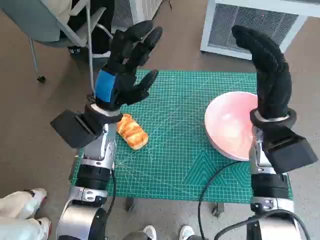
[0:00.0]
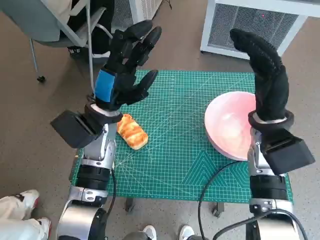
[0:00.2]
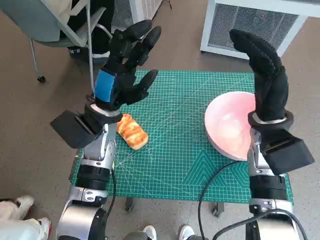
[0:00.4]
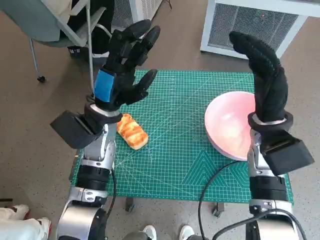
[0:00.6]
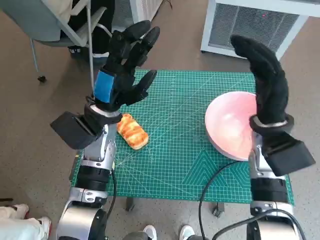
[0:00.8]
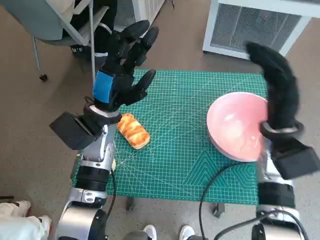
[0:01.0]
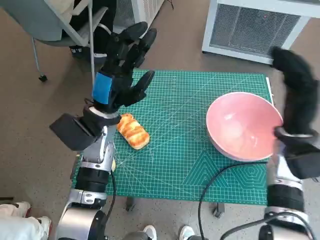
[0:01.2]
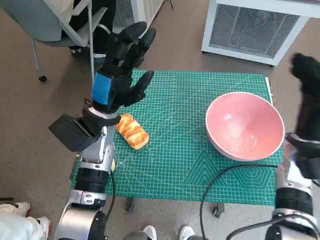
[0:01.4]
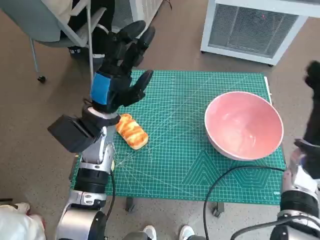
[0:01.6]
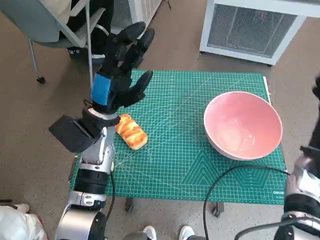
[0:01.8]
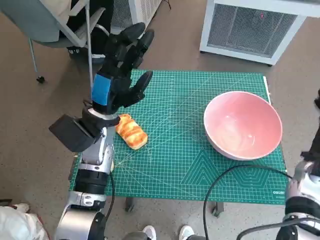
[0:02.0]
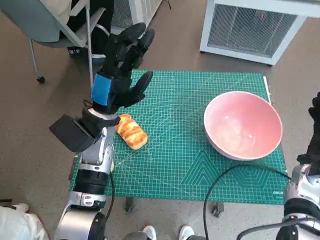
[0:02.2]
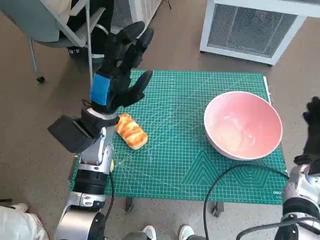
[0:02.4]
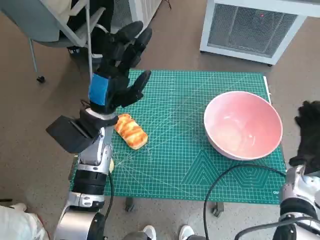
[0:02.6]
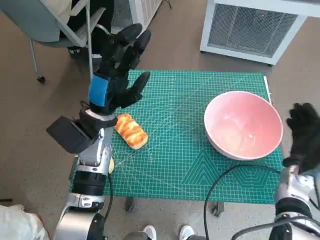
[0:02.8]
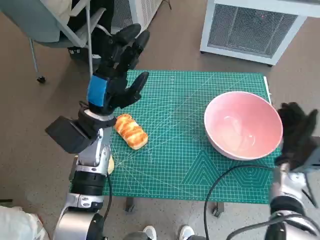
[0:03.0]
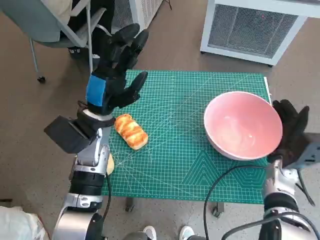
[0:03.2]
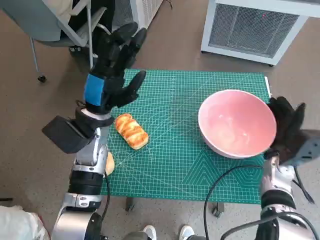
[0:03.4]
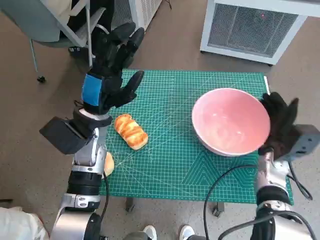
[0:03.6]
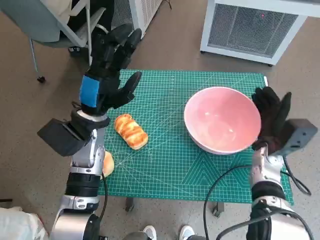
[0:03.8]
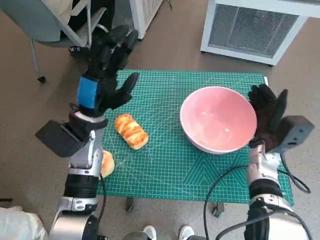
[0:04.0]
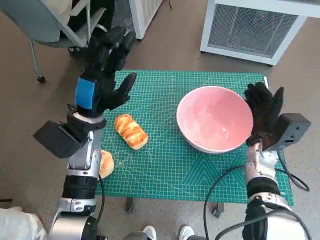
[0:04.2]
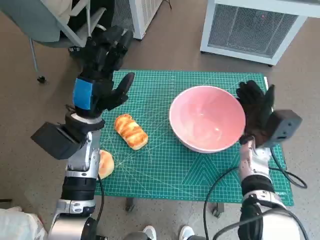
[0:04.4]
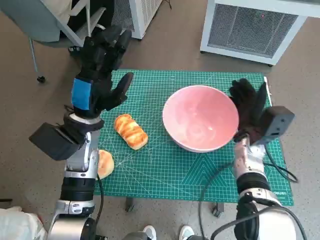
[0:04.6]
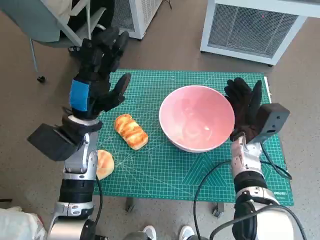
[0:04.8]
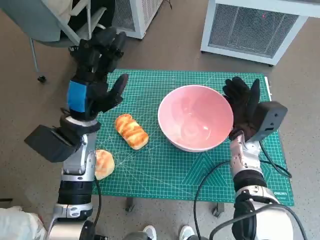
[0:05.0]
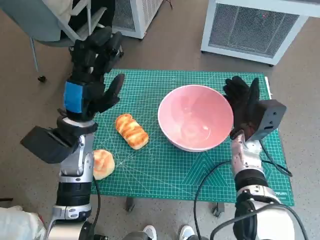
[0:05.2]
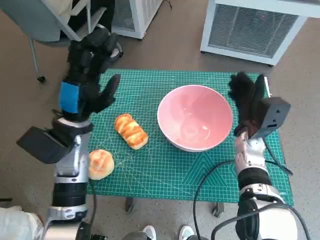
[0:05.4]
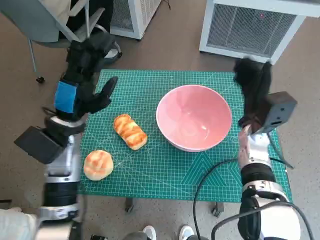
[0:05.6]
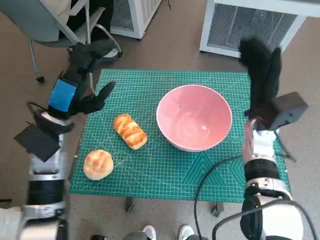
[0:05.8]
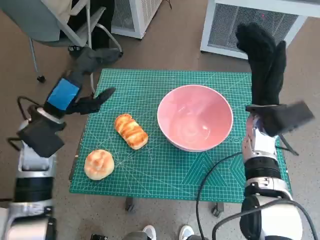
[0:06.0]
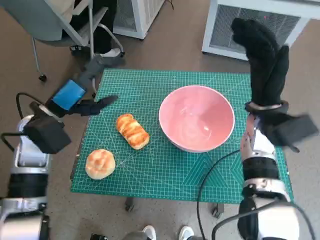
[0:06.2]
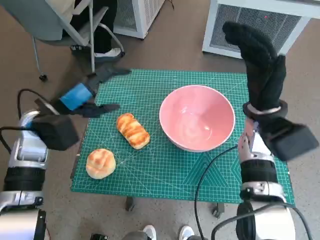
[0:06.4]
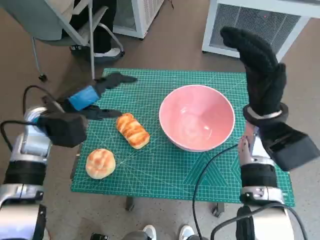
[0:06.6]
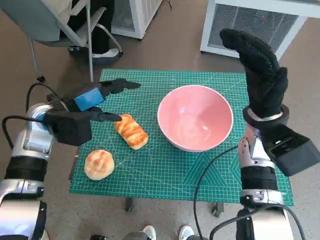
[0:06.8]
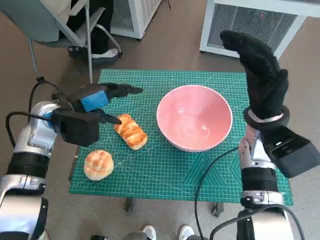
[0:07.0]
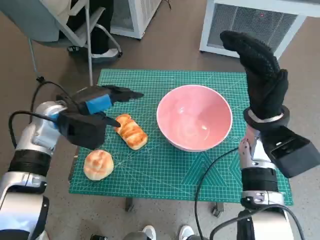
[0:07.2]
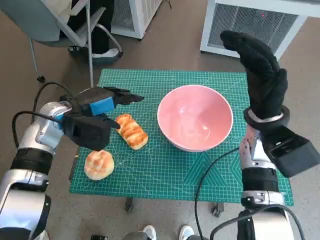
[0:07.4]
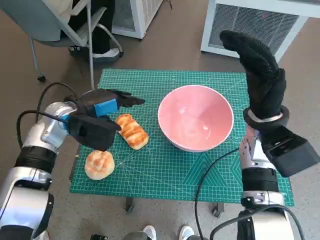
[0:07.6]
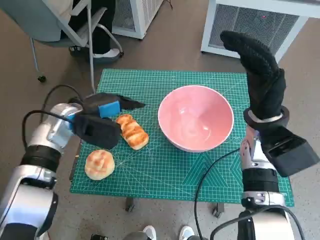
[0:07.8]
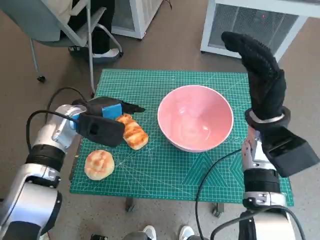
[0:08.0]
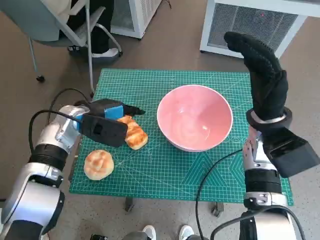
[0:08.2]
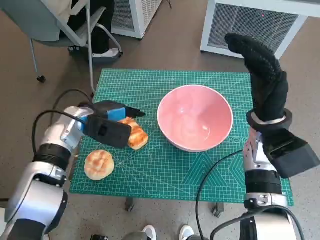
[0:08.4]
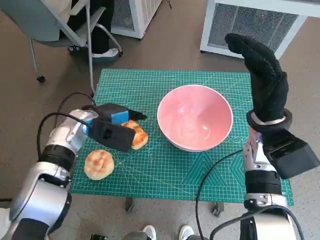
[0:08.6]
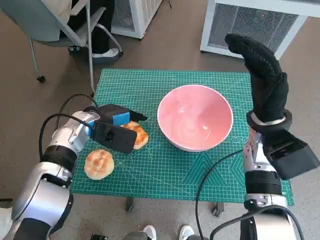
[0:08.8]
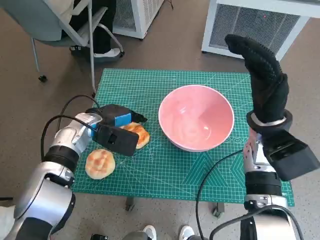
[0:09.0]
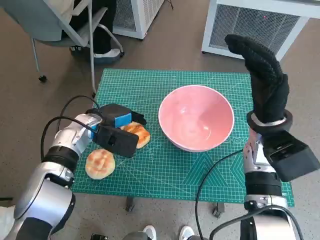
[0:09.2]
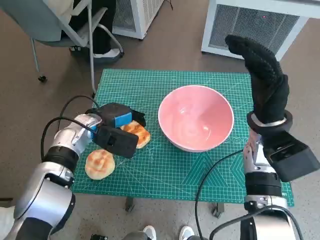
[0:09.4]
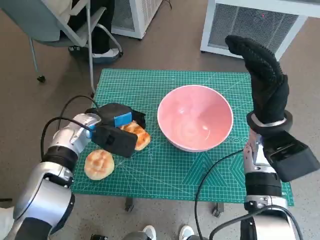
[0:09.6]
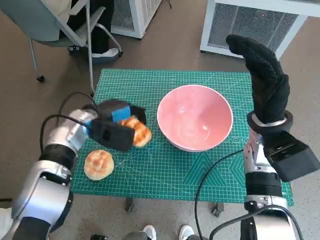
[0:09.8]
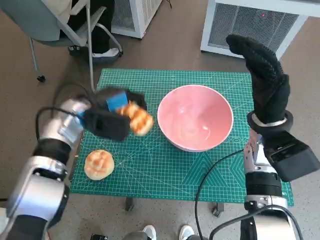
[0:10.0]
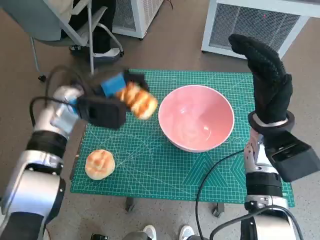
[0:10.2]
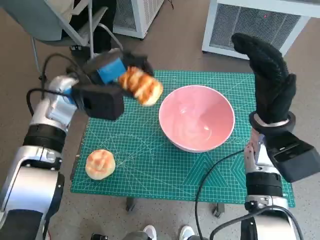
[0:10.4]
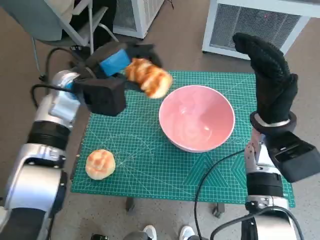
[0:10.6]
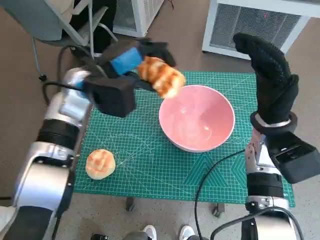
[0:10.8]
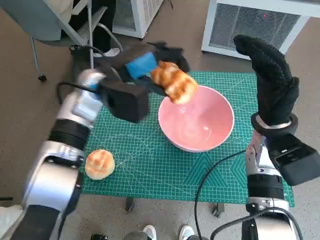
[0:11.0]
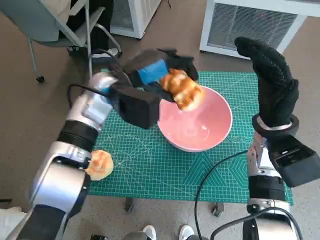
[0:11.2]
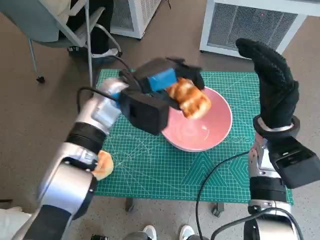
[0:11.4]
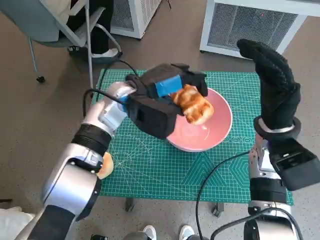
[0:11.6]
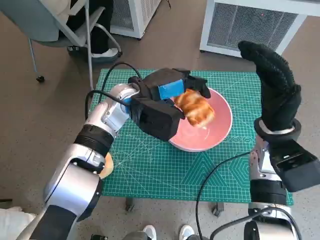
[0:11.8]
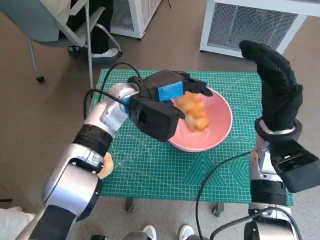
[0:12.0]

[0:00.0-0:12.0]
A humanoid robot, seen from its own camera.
Task of the whole recording: Push the bowl to the center of the table and put the bread into the bowl.
Step, 0.0 to 6.0 s: Move the pink bowl to the center of table with right hand.
Step, 6.2 to 9.4 s: Grasp the long bread with left hand.
1.6 to 3.0 s: The right hand shifts approximately 5 cm downward.
3.0 to 4.4 s: The right hand is displaced to the left by about 10 cm.
4.4 to 6.0 s: The left hand shifts about 5 cm to the left; the right hand travels upward by some 10 cm.
6.0 to 7.6 s: The left hand changes place by approximately 5 cm.
7.6 to 9.0 s: The left hand ends up some 5 cm from where it was.
9.0 to 10.4 s: The left hand goes approximately 10 cm upward.
10.4 to 12.0 s: The left hand shifts approximately 10 cm to the right.

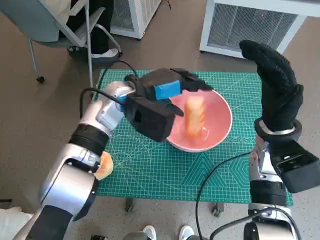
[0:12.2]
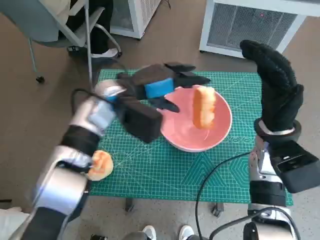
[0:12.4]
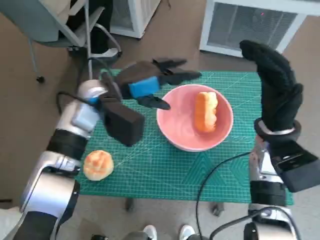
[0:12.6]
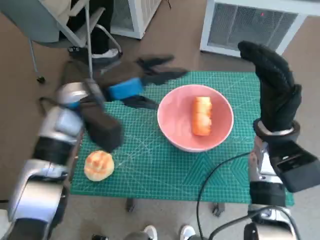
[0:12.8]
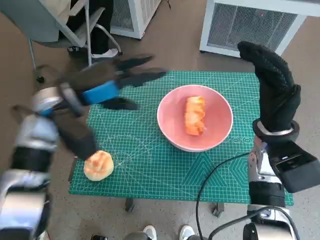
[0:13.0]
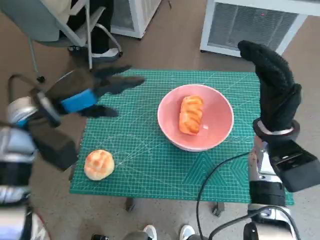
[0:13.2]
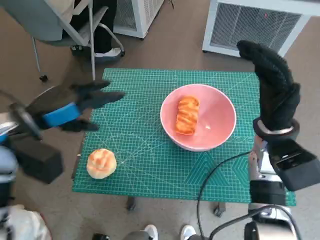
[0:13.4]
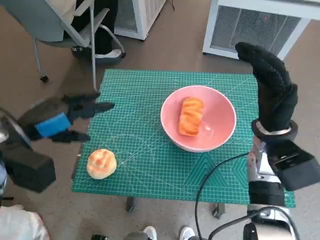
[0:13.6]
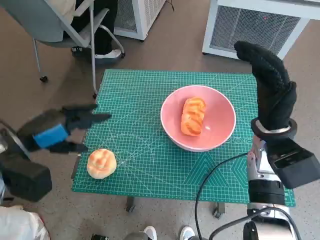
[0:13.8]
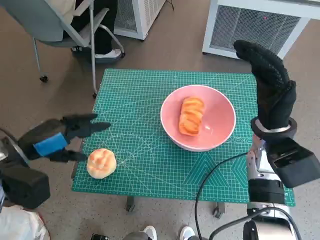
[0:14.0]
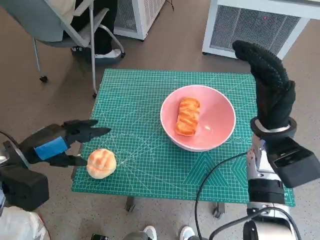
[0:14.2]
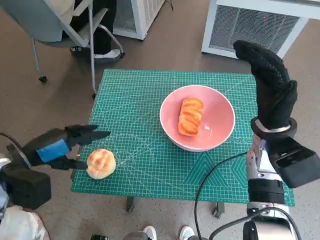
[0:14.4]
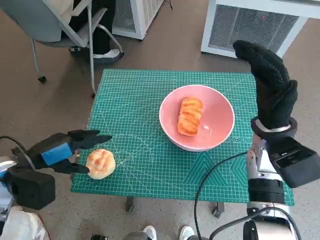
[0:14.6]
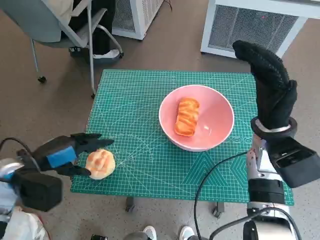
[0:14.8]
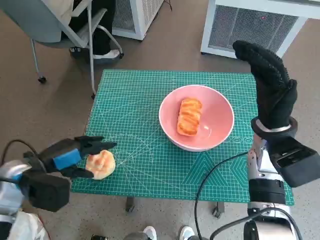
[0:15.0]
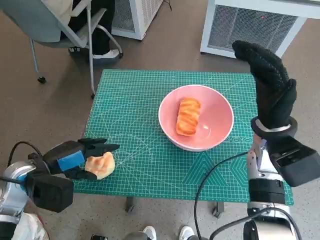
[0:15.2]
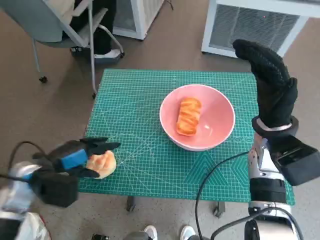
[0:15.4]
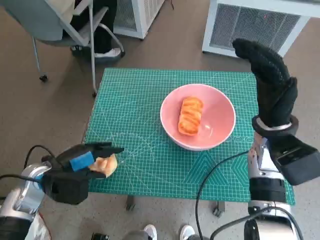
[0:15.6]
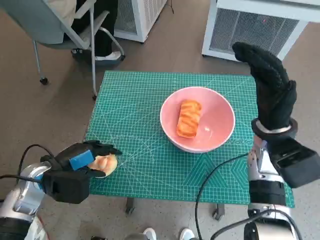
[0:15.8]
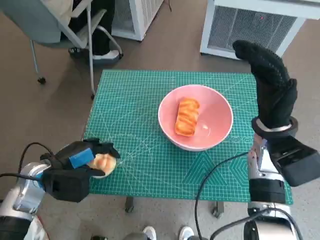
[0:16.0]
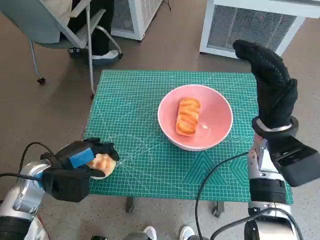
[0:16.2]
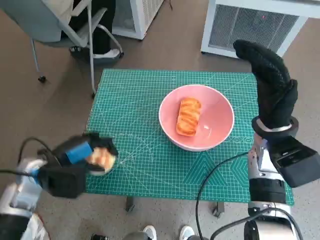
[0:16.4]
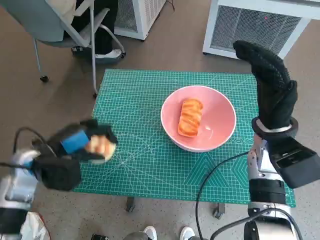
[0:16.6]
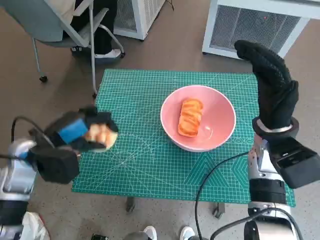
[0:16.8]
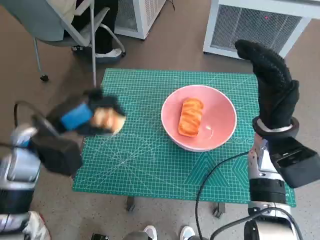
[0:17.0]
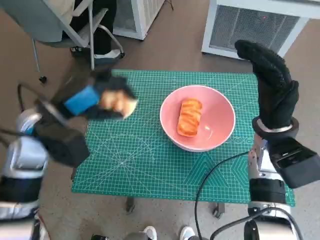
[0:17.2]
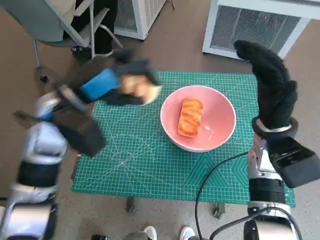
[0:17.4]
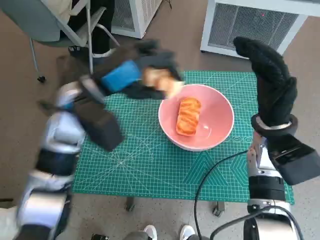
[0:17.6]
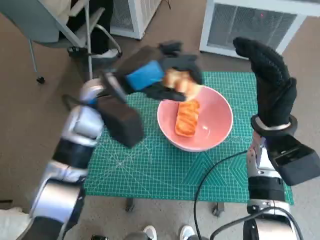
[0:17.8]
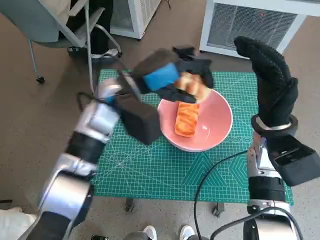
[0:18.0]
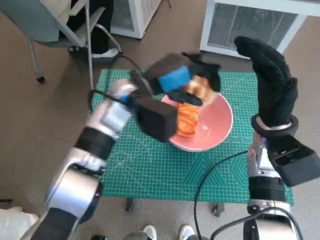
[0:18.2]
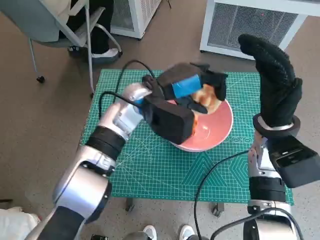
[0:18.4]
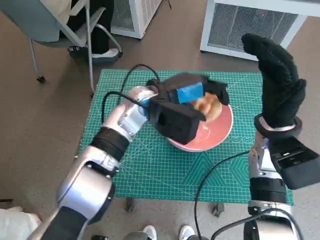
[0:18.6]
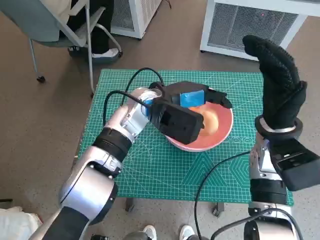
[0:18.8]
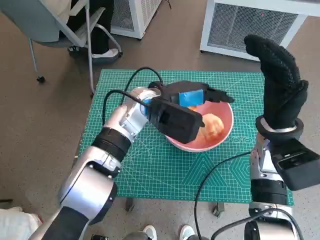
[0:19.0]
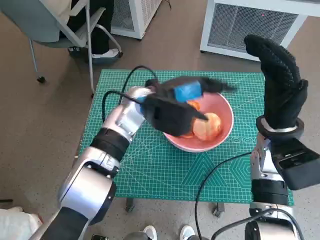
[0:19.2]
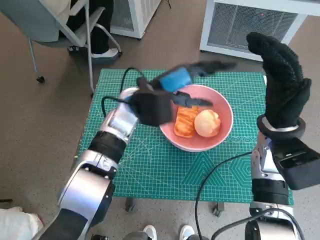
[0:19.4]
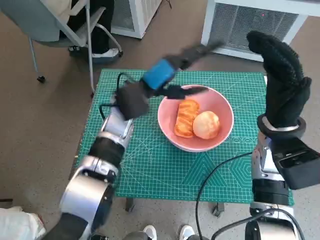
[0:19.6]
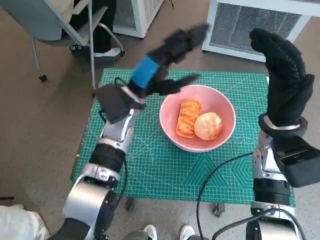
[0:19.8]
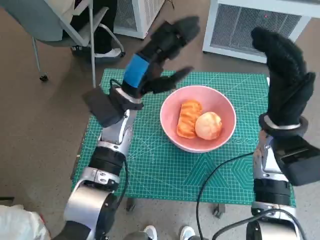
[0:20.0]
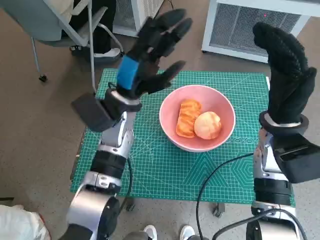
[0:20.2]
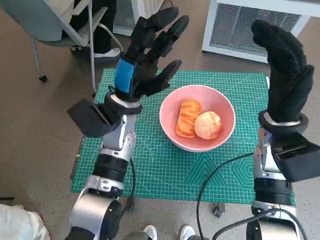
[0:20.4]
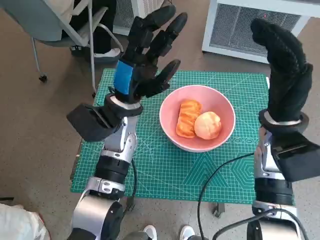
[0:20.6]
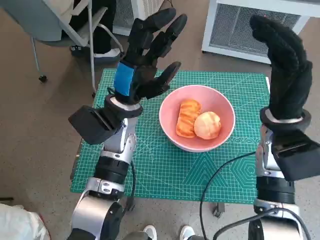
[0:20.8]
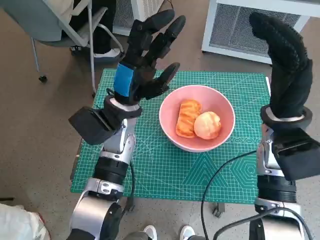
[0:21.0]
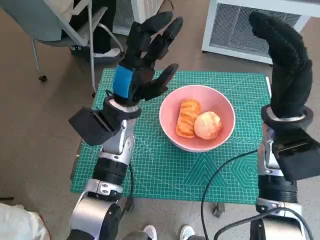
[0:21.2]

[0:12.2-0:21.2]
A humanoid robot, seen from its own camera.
Task of the whole recording: Push the bowl to the center of the table and put the bread into the bowl.
Step, 12.8 to 16.2 s: Grasp the round bread with left hand.
Step, 16.4 to 19.6 s: Place the round bread in pink bowl with left hand.
12.2 to 13.8 s: The left hand is displaced to the left and backward by about 20 cm.
13.8 to 15.2 s: The left hand heads downward, covering about 10 cm.
15.2 to 16.6 s: There are only small adjustments of the hands.
16.6 to 18.2 s: The left hand goes about 25 cm to the right, forward and upward.

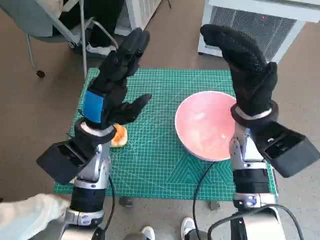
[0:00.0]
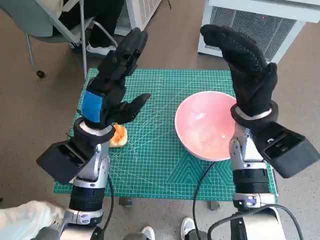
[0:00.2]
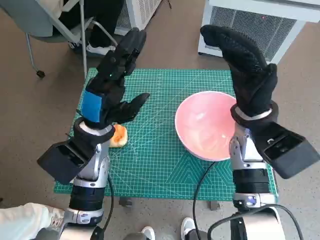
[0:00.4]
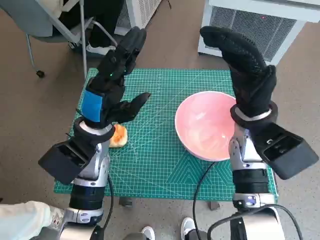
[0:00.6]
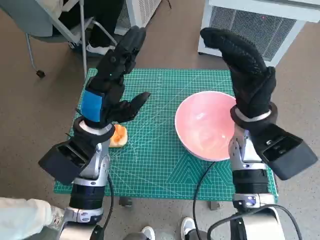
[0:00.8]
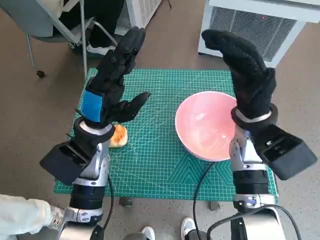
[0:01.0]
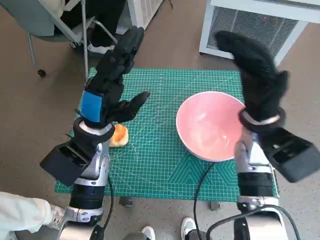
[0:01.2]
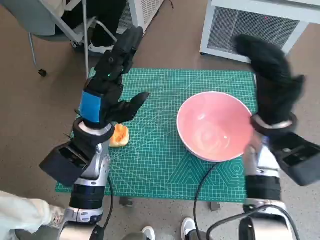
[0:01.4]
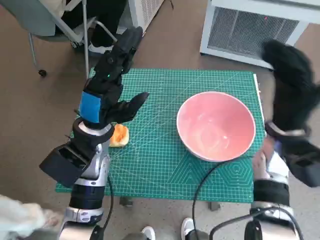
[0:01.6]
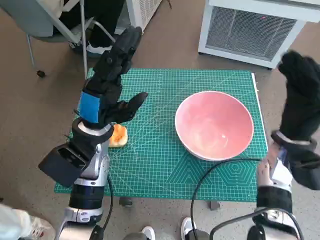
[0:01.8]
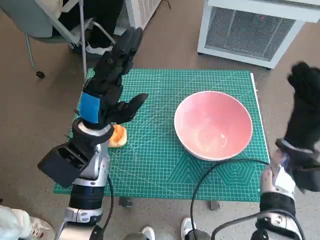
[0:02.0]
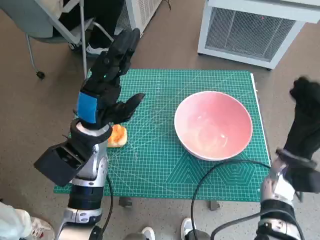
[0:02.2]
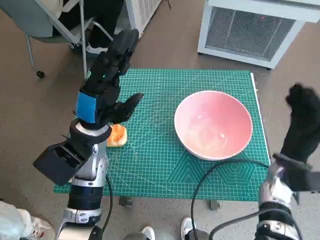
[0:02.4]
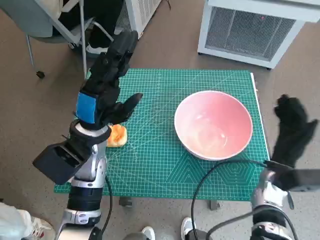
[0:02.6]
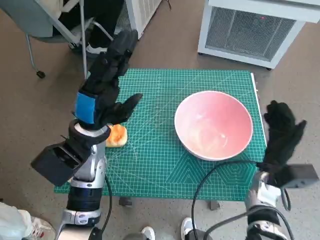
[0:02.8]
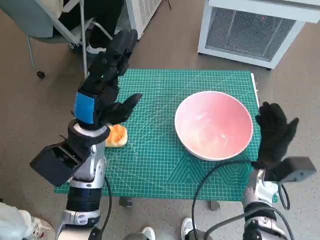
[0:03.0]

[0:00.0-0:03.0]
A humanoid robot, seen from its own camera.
Task of the whole recording: Push the bowl to the center of the table and put the bread into the bowl.
1.6 to 3.0 s: The right hand moves downward, roughly 15 cm.
